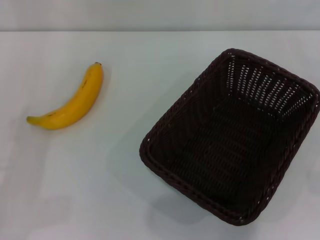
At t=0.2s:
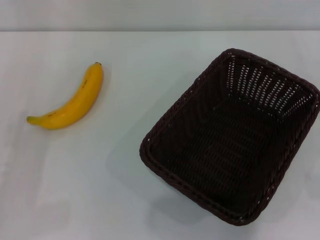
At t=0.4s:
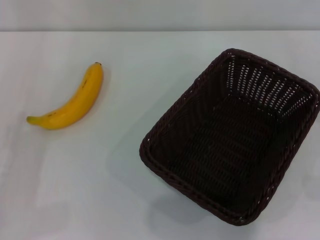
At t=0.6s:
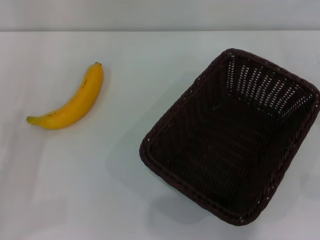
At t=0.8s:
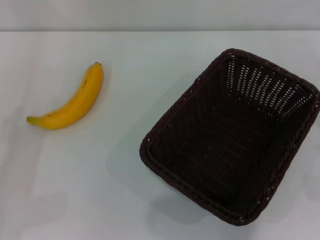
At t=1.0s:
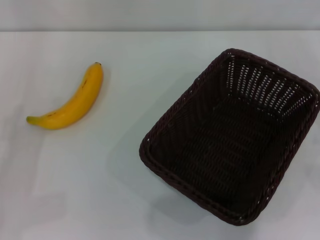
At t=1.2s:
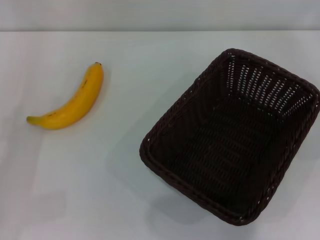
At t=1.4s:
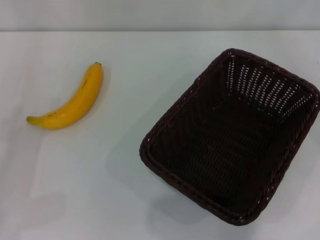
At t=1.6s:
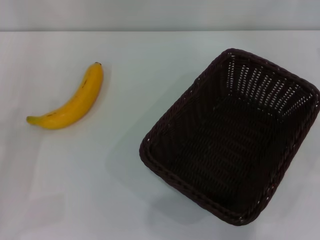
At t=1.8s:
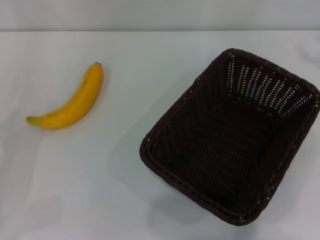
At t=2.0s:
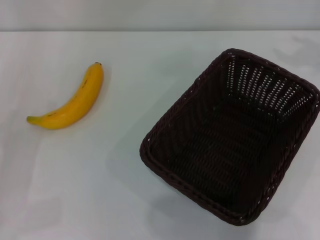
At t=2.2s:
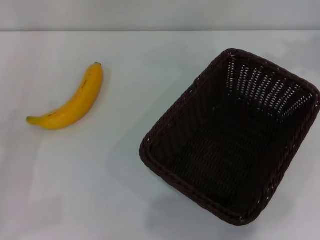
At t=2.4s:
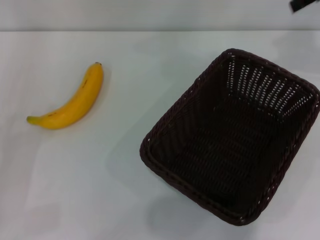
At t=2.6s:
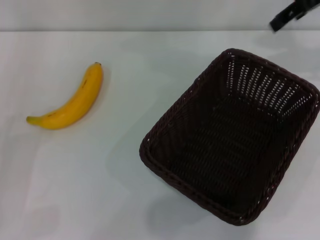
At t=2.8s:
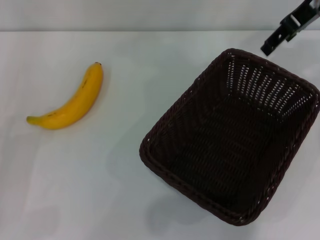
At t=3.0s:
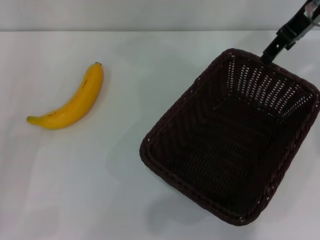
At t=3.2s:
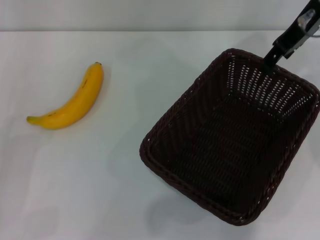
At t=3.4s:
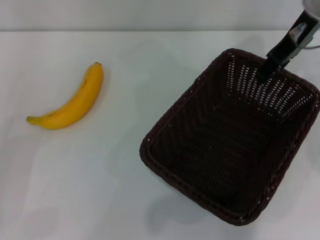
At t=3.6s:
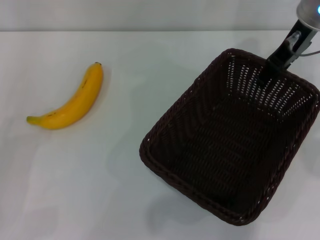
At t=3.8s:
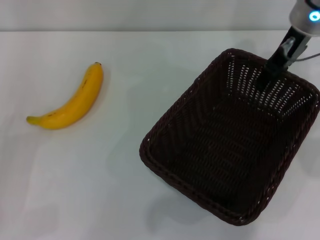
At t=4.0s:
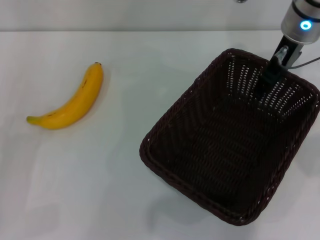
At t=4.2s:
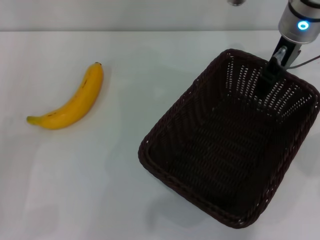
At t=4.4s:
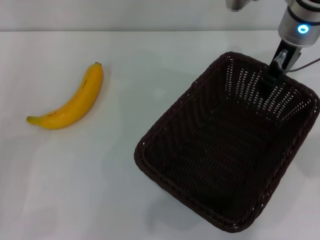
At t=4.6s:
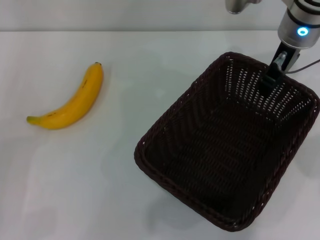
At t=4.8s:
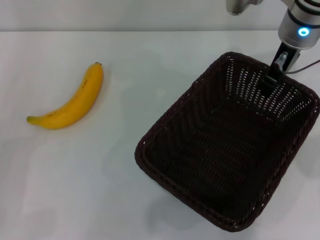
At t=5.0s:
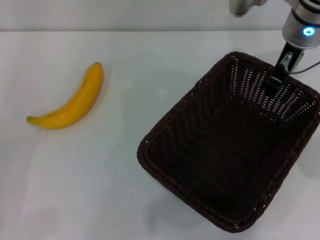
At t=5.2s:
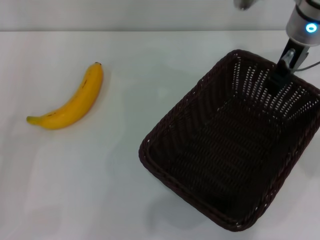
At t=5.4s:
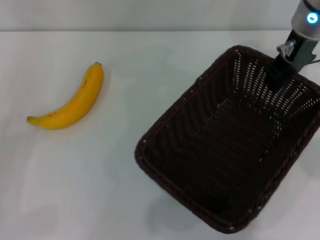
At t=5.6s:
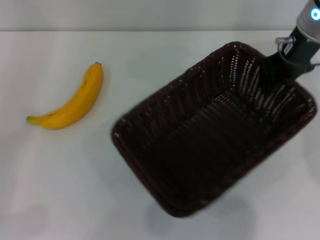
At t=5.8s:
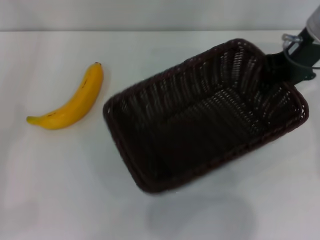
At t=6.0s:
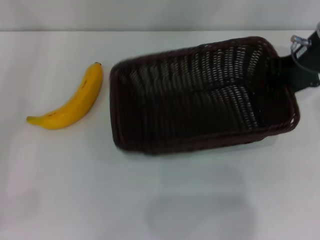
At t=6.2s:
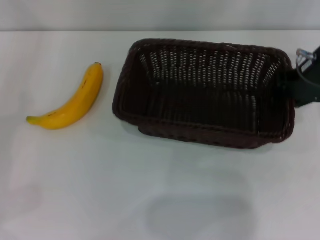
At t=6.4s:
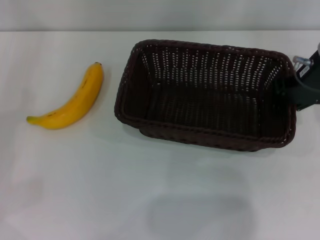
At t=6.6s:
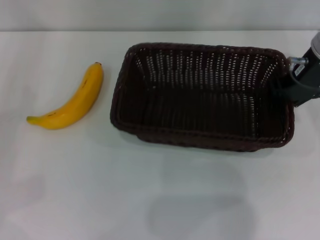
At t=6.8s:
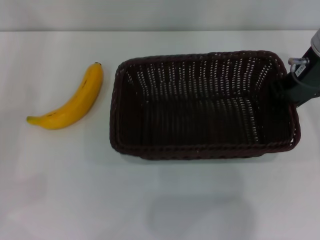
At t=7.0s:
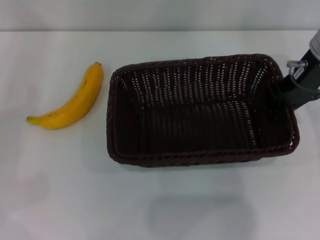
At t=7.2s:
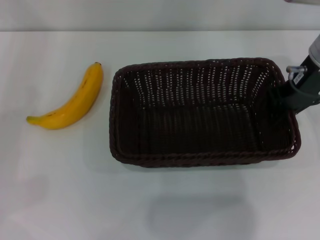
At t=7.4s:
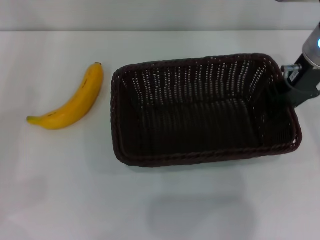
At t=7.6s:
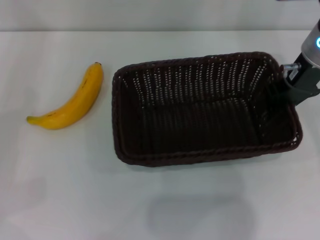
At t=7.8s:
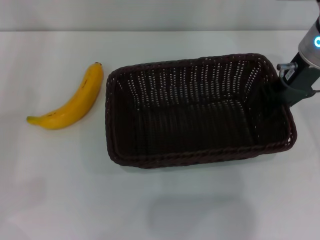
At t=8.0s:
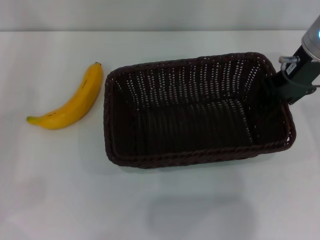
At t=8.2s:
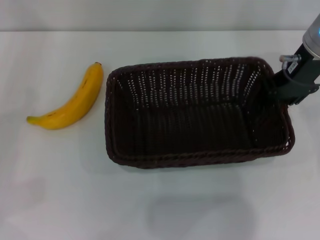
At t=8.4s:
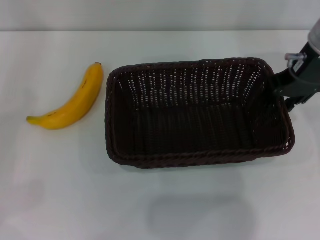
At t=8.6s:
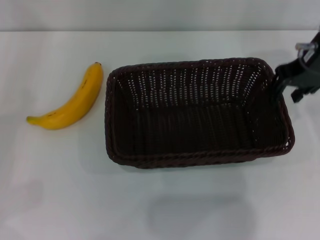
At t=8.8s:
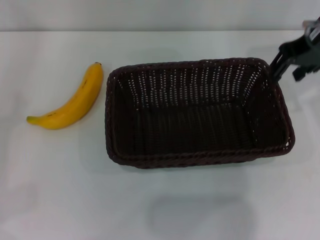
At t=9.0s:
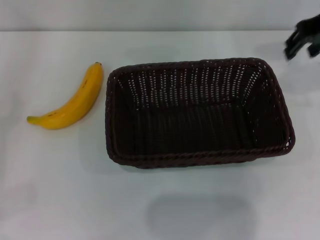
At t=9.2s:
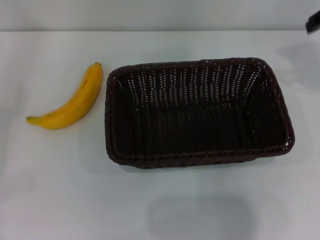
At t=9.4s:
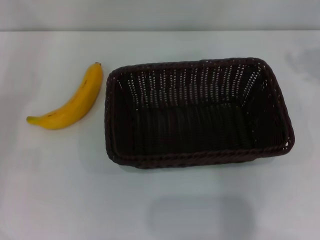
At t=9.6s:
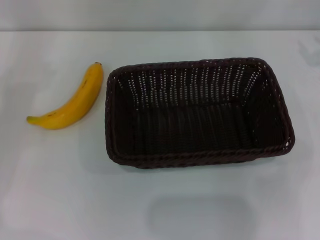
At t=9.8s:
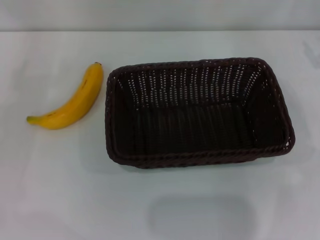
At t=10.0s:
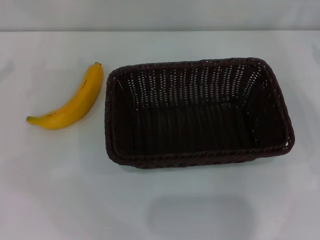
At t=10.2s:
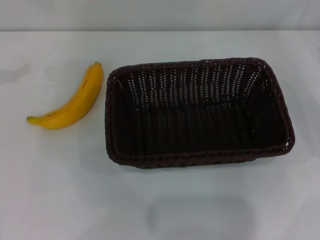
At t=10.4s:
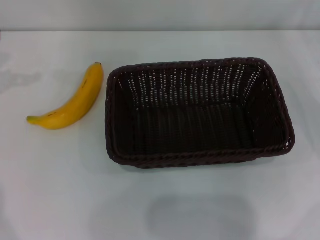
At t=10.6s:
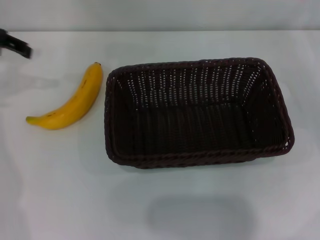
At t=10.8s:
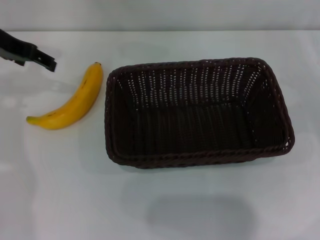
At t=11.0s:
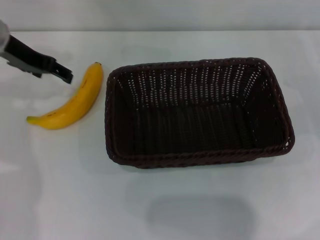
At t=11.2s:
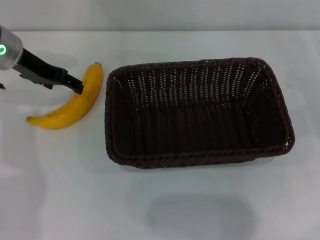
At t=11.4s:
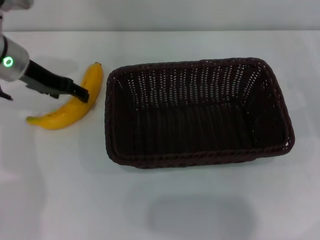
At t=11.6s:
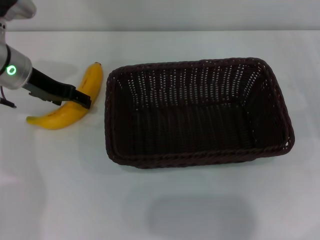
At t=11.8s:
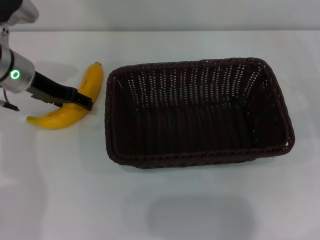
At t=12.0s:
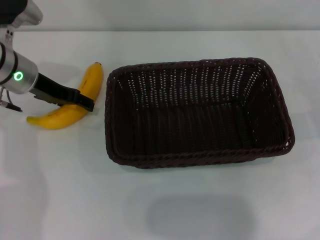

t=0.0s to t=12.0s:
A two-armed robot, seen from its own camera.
Step, t=0.0s to t=5.8s: Pick up the dark basket with the right gripper.
Step, t=6.0s to t=9.0s: Place the dark basket in the center of view with the right gripper.
t=1.6s to t=3.0s: The right gripper shifts approximately 25 cm to the left and forward.
t=3.0s to t=4.4s: The right gripper moves downward, some 5 cm.
t=4.4s to t=6.0s: The left gripper travels to the left and upward by about 10 cm; the right gripper is displaced to the right by some 5 cm, and closes its fingers.
t=7.6s to t=9.0s: The right gripper travels upward by about 10 cm, and opens its fingers.
t=9.0s to t=10.4s: The right gripper goes roughly 25 cm downward and to the right.
t=10.4s to t=12.0s: The left gripper shifts some 20 cm to the right and downward.

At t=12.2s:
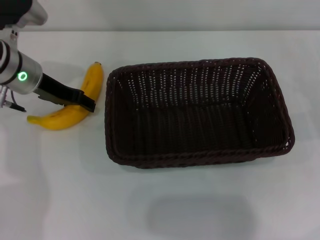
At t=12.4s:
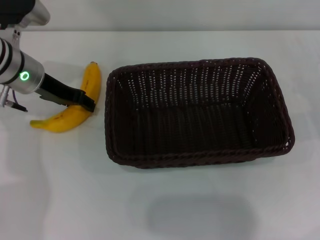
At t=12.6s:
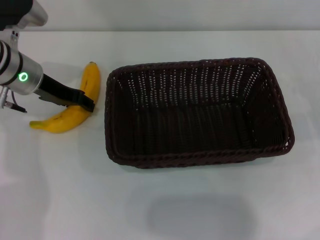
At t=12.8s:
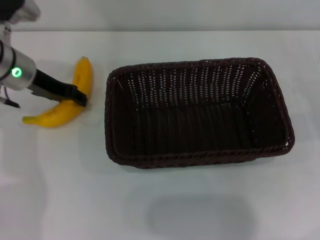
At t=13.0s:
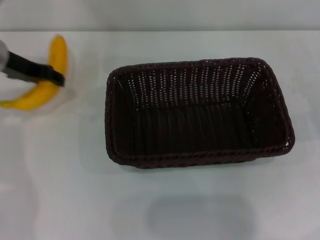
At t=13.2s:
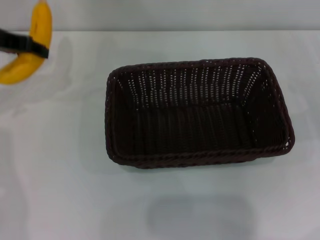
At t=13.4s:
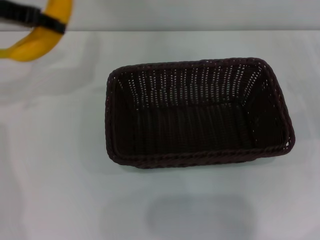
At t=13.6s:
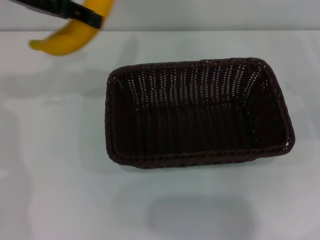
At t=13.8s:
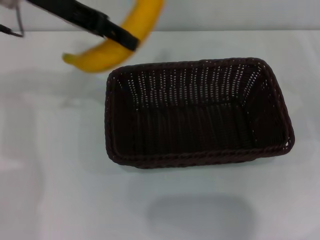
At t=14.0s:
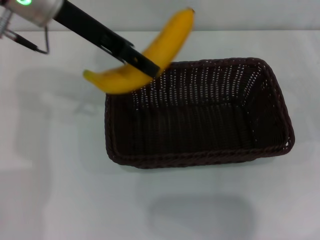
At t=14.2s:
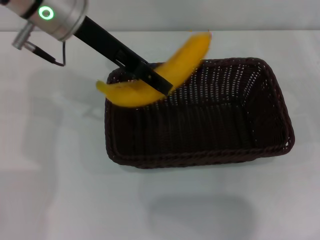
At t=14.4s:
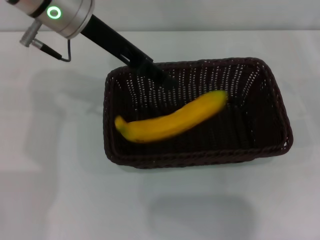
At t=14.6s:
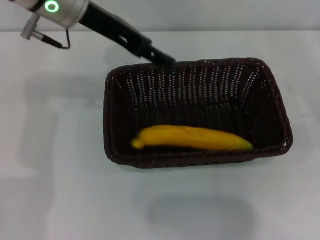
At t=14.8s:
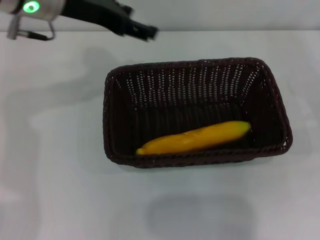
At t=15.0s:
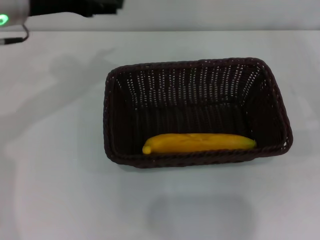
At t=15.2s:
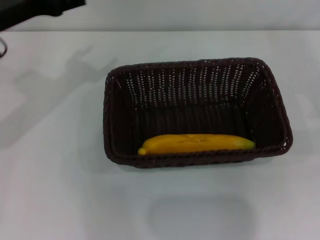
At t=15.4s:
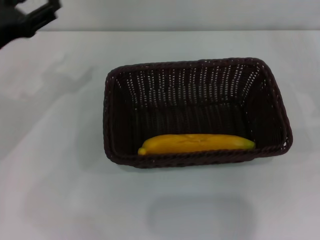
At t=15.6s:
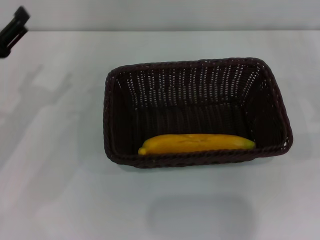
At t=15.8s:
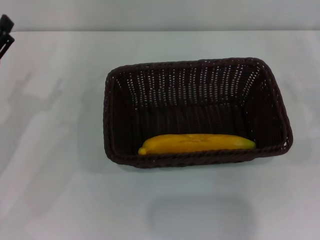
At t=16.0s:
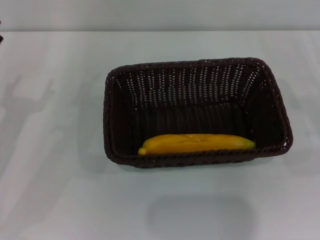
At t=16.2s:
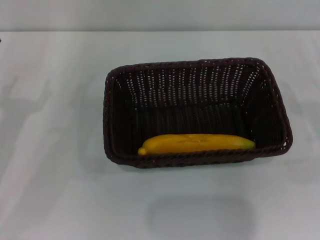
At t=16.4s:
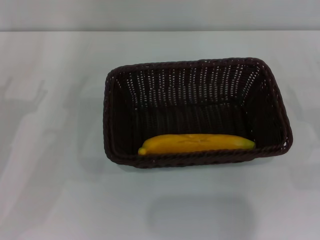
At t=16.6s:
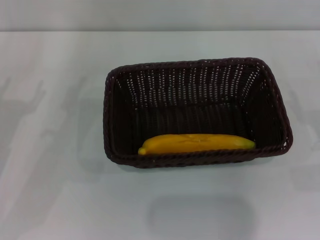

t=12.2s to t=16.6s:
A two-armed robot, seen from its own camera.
Step, t=13.2s to t=14.6s: Place the banana into the dark basket with the left gripper.
t=12.2s to t=13.6s: The left gripper is displaced upward by roughly 15 cm, and closes.
t=13.6s to t=15.2s: The left gripper shifts about 10 cm downward, moves roughly 10 cm to the right and comes back, and opens up.
t=15.2s to t=16.6s: The left gripper heads downward, backward and to the left, covering some 15 cm.
